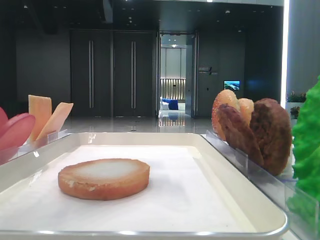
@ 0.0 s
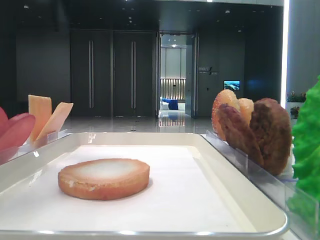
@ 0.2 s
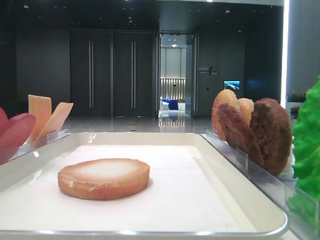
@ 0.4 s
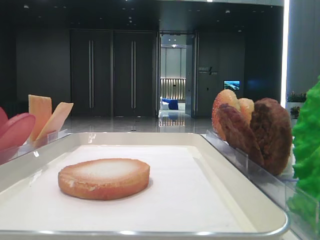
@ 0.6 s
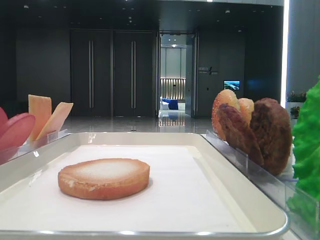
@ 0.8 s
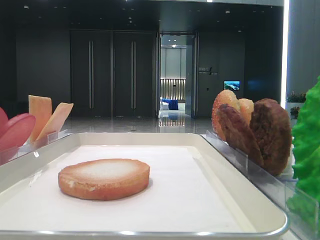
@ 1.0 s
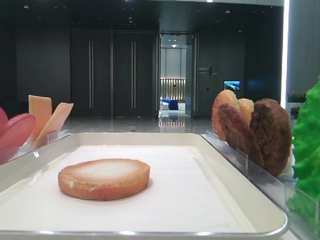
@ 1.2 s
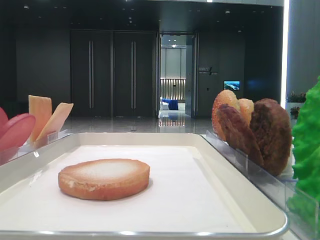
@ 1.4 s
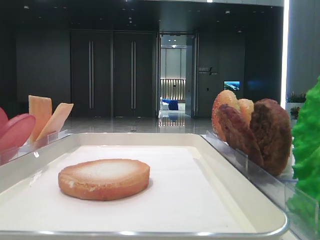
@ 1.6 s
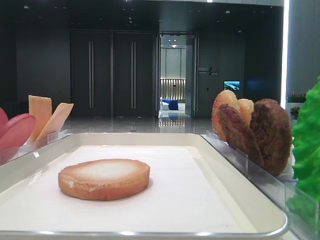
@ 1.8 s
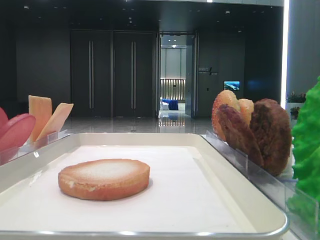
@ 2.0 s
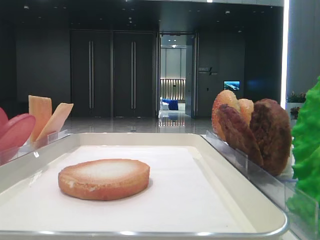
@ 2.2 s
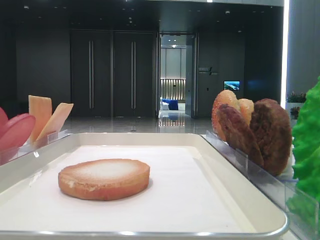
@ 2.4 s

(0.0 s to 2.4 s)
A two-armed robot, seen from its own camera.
0.0 s - 1.2 s: The left gripper shifts some 25 cm to the left and backward.

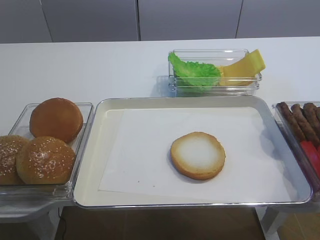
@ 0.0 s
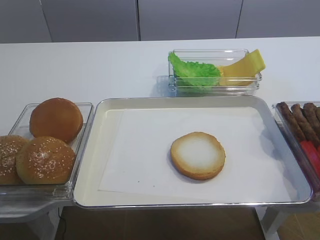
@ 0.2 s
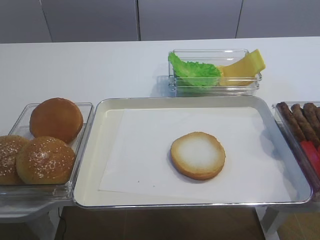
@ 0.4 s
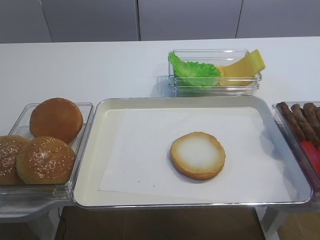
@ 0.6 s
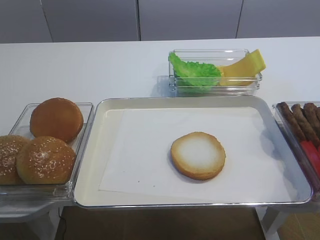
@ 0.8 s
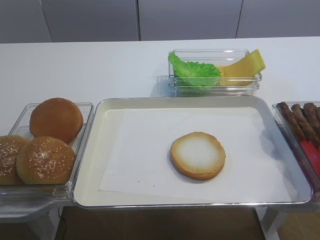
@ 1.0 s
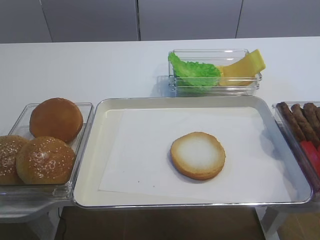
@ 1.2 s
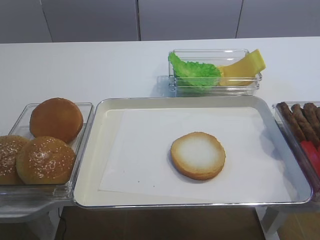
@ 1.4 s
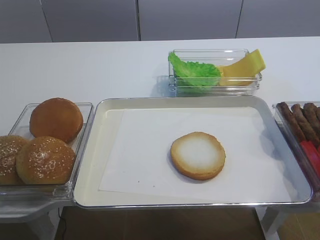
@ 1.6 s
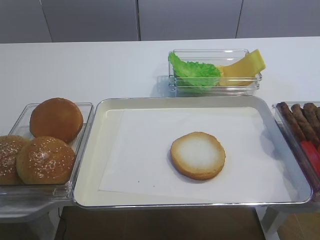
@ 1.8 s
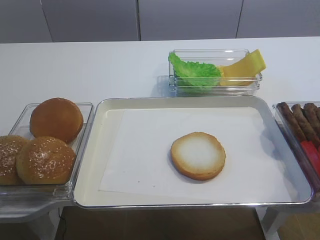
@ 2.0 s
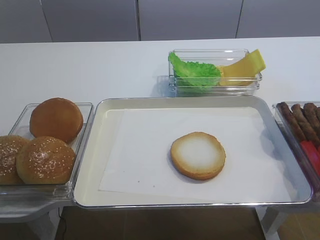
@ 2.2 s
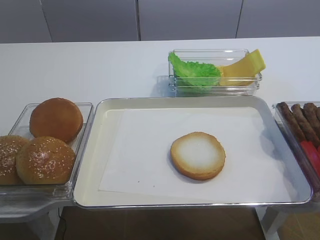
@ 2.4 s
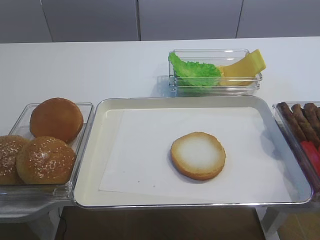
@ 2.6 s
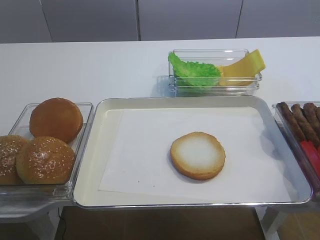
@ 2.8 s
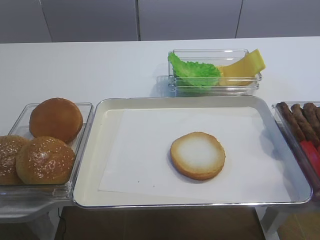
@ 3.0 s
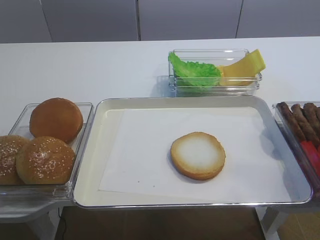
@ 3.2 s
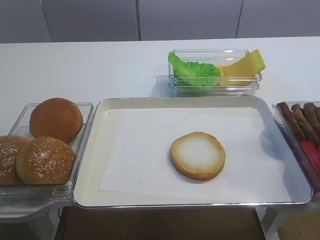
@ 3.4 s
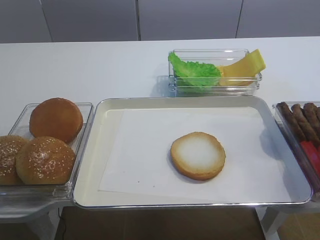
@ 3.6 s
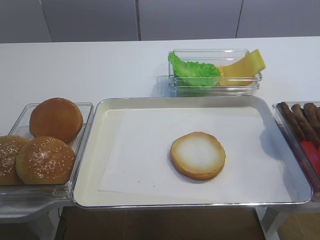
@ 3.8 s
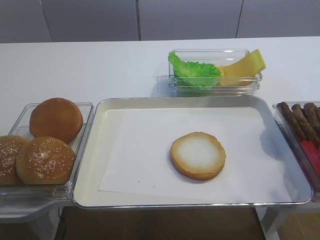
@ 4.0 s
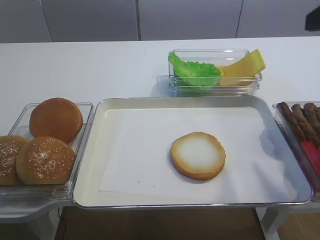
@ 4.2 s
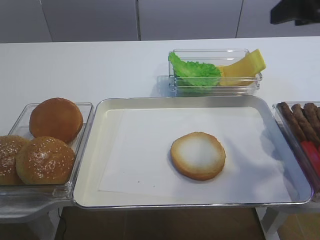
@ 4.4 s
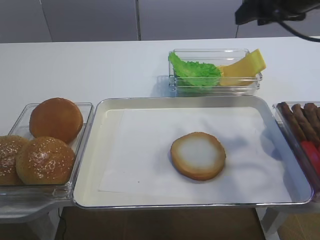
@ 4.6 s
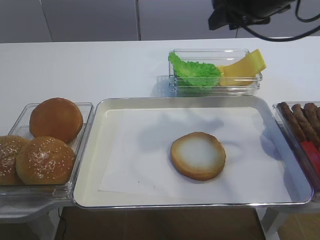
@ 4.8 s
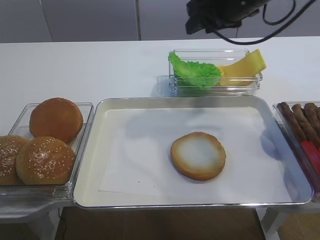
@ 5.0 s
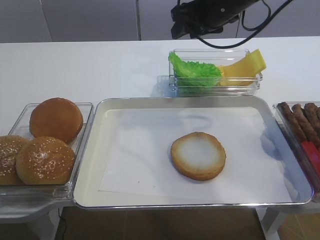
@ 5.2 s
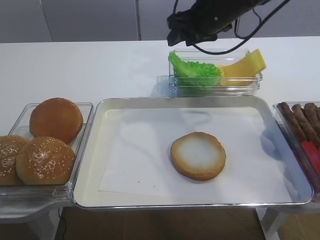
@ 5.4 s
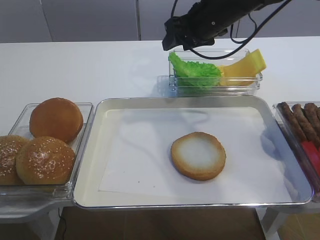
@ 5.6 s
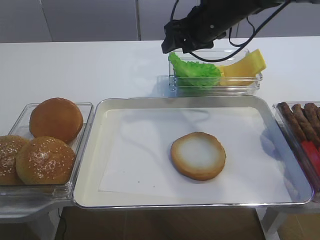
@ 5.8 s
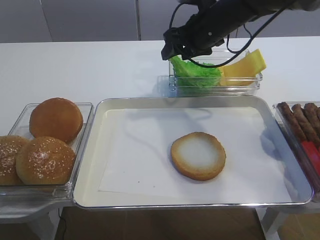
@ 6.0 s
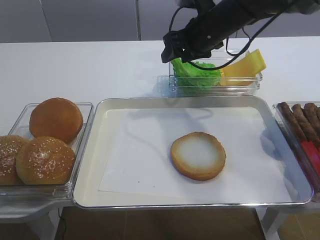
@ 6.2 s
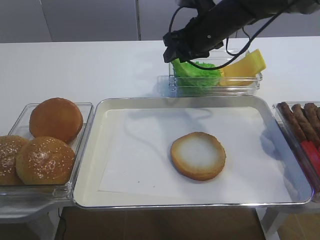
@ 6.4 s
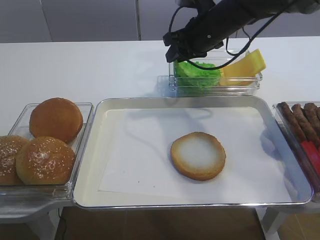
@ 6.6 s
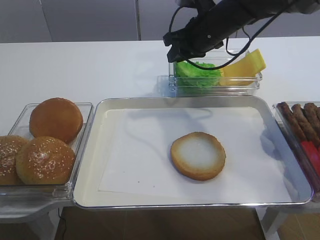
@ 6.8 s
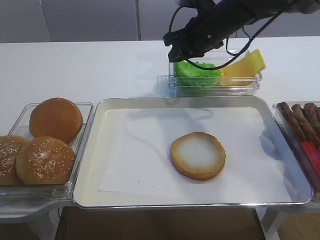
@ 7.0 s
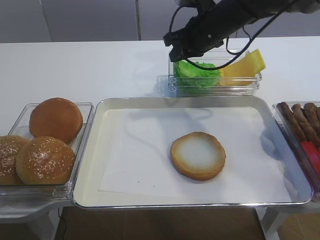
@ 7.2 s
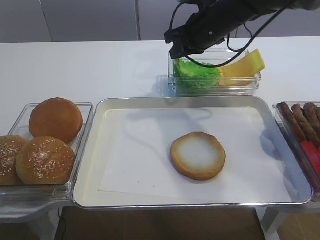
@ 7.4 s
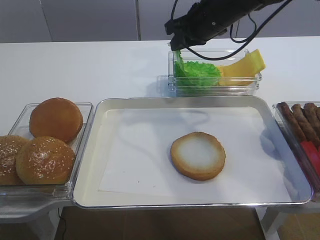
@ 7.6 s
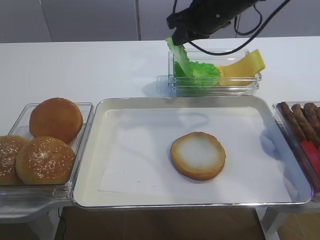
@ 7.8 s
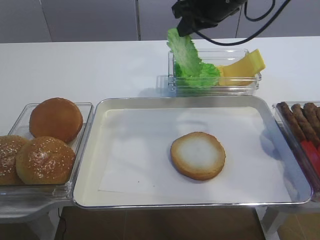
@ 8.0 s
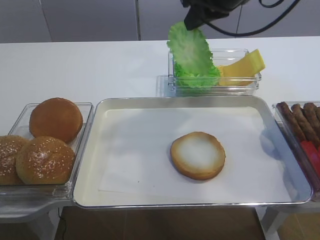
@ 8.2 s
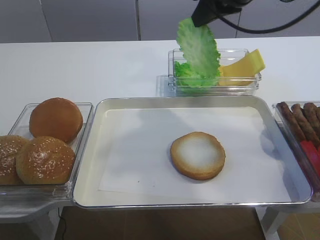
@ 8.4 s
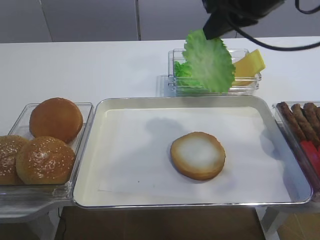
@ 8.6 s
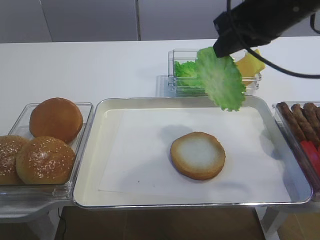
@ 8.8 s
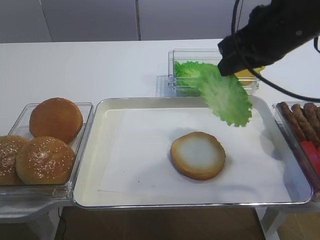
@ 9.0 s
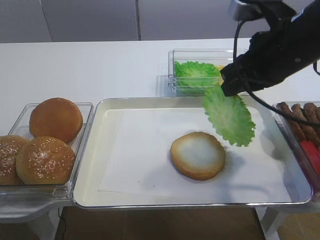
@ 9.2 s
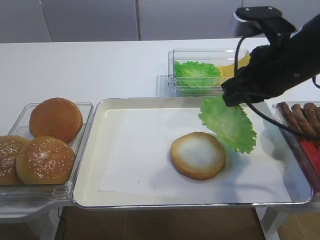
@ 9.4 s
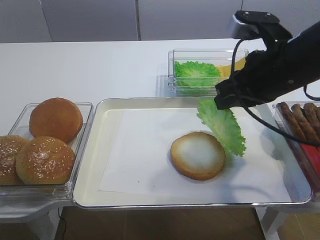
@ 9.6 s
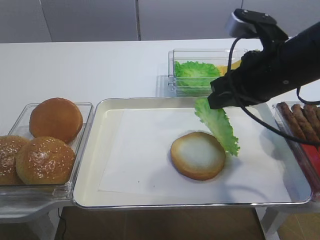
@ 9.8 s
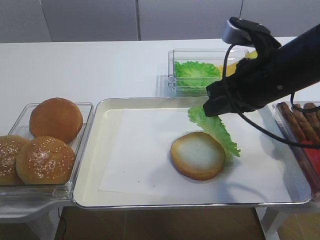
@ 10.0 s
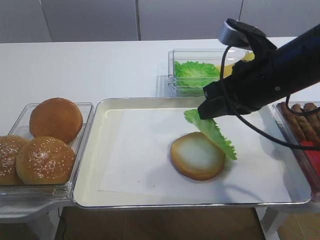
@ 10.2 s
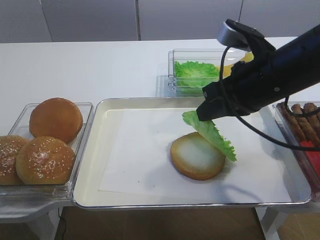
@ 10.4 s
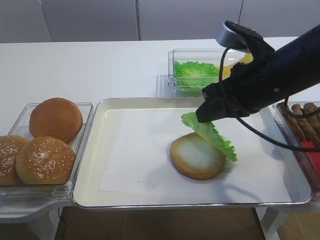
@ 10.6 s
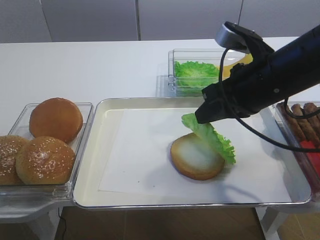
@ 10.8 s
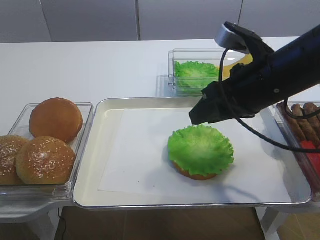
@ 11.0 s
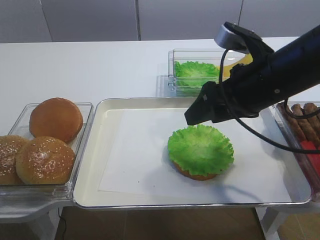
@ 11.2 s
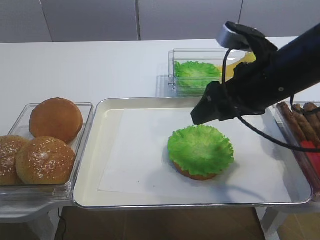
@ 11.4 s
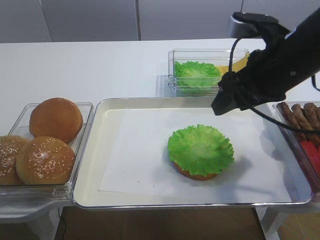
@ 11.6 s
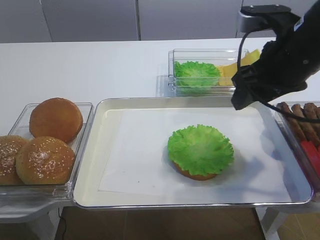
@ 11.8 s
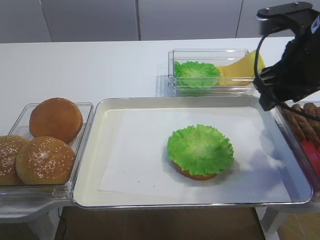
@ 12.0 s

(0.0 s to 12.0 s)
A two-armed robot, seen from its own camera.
Step, 0.0 s - 8.4 s: Pick up the lettuce leaf with the right gripper.
3.0 s - 4.4 s: The right gripper heads forward, covering some 25 cm.
4.4 s - 6.0 s: The right gripper heads forward, to the left and downward, covering roughly 25 cm.
6.0 s - 7.6 s: The right gripper closes up.
7.6 s - 9.0 s: The right gripper heads backward, covering roughly 15 cm.
9.0 s - 10.4 s: The right gripper is displaced downward by about 5 cm.
10.4 s - 12.0 s: The right gripper shifts by some 5 cm, and opens its fingers.

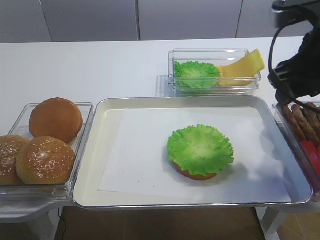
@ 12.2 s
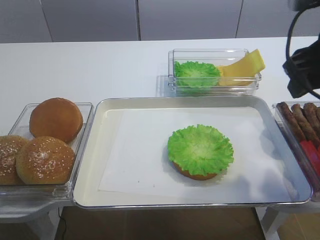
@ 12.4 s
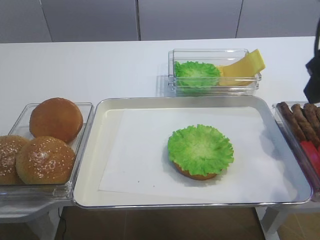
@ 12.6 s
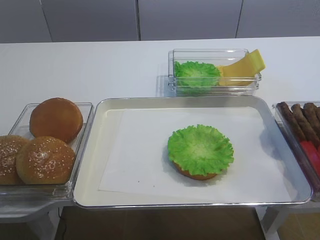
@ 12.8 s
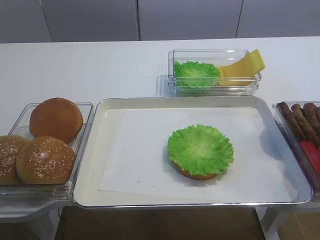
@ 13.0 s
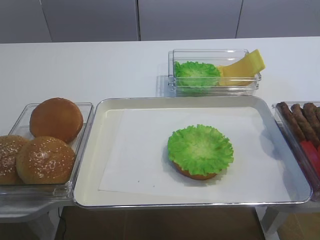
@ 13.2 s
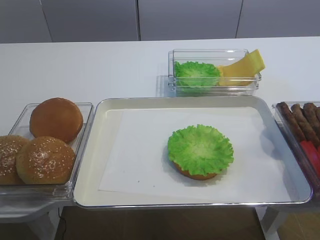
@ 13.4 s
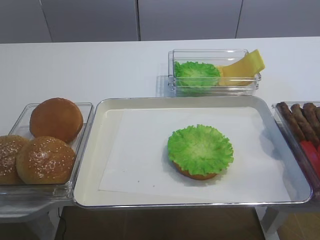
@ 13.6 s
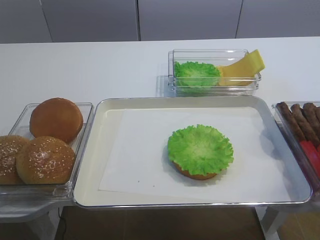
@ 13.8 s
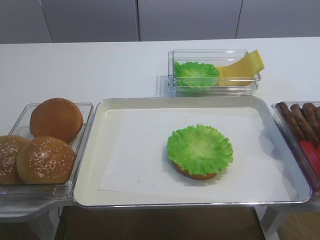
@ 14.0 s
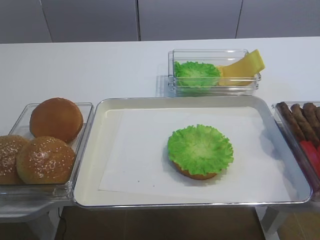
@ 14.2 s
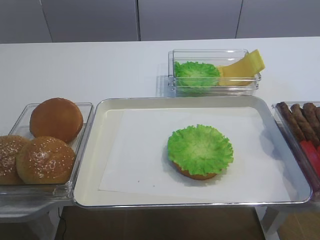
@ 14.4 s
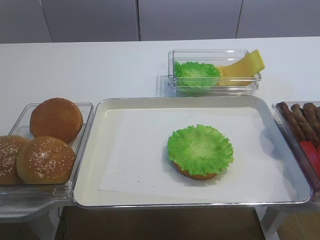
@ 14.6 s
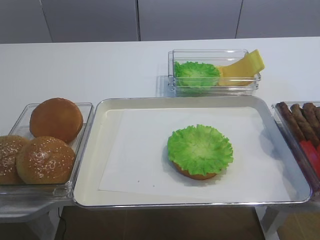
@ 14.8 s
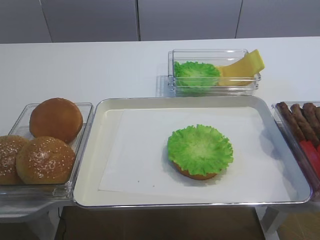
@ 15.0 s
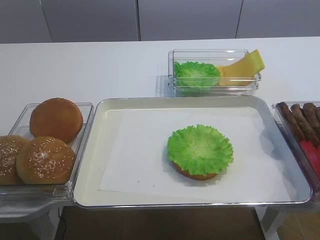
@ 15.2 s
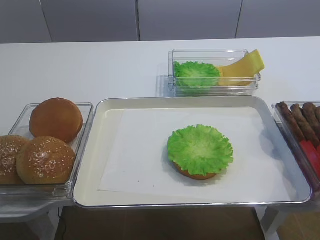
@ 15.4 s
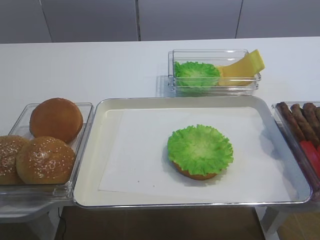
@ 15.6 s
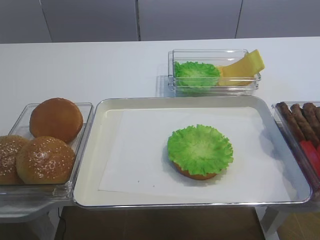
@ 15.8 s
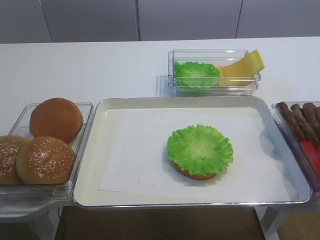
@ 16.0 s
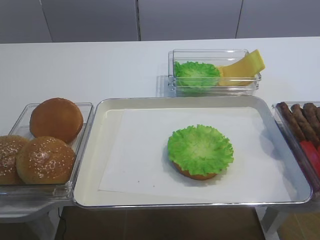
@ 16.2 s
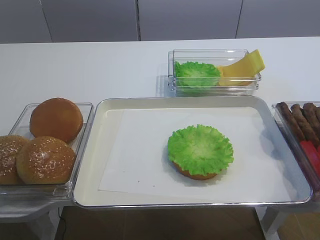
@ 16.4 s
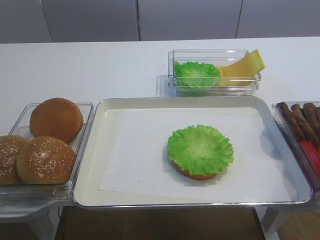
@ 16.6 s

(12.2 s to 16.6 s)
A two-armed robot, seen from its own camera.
12.2 s - 13.6 s: The right gripper moves backward, roughly 25 cm.

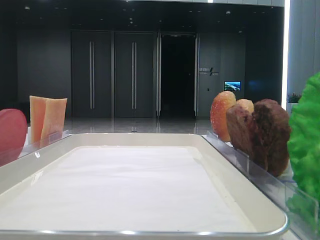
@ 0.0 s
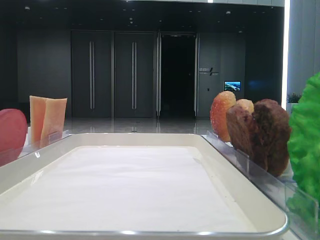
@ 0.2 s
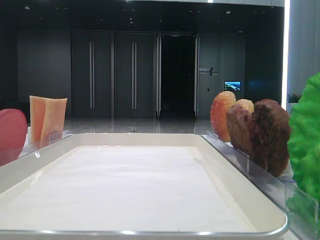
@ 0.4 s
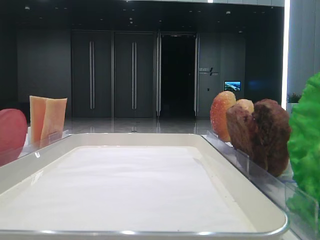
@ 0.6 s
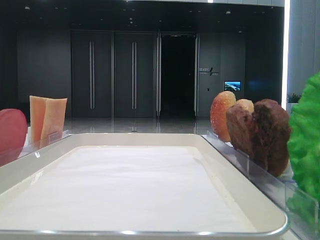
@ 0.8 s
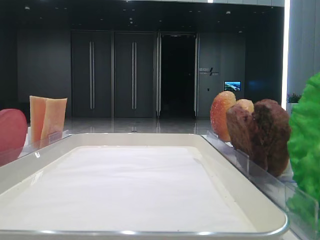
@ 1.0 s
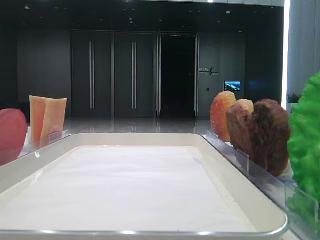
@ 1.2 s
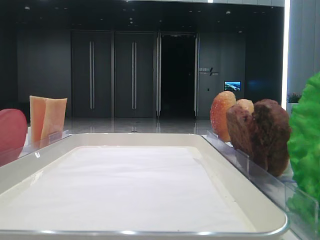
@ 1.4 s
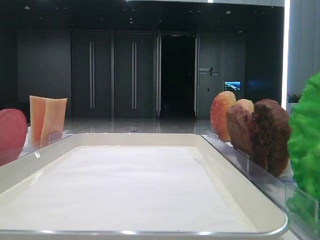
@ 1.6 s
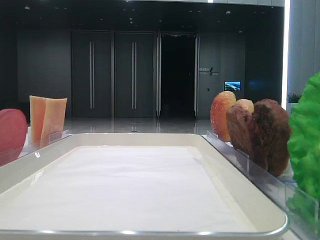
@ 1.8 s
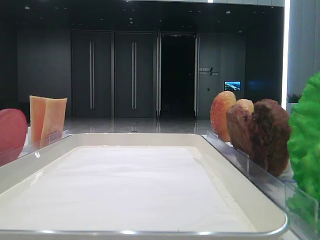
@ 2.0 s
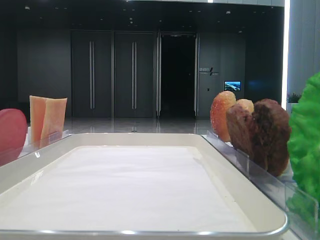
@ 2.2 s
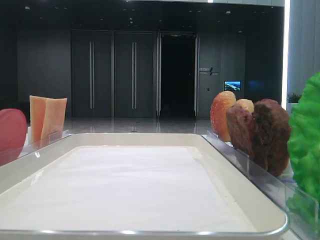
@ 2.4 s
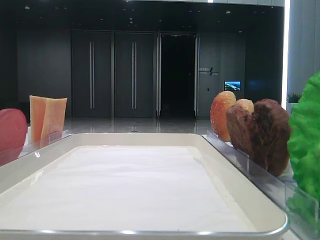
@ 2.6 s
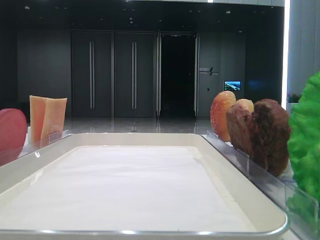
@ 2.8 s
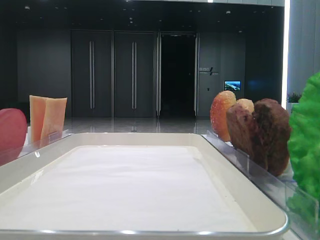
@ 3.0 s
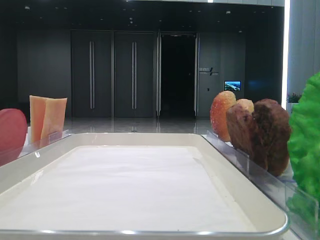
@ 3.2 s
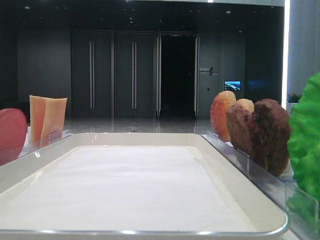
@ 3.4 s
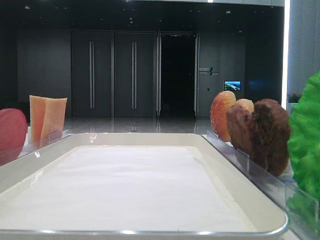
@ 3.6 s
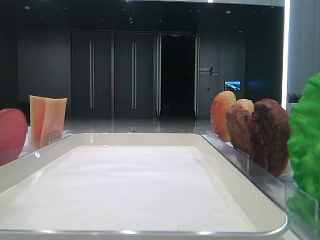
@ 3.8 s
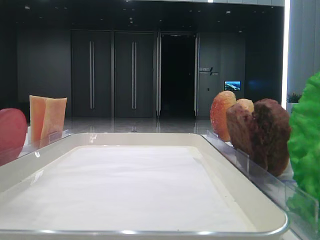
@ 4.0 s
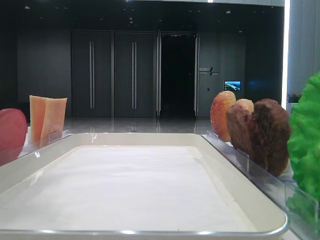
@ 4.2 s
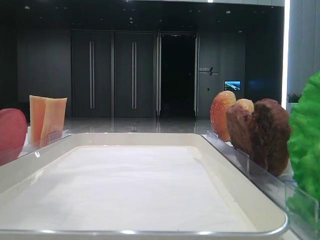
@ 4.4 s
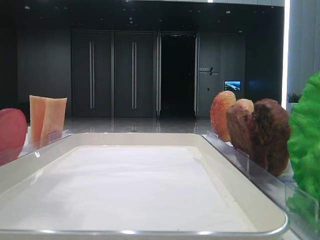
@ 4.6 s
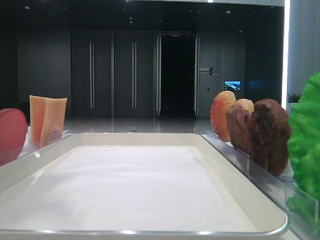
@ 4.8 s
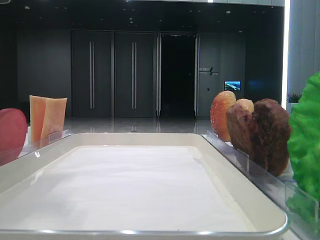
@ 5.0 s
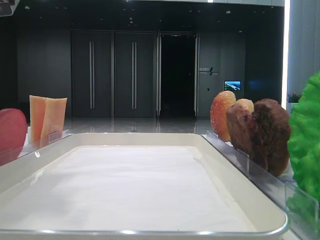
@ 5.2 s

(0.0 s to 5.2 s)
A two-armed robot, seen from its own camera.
3.4 s - 5.2 s: The left gripper moves to the right and downward, some 15 cm.
